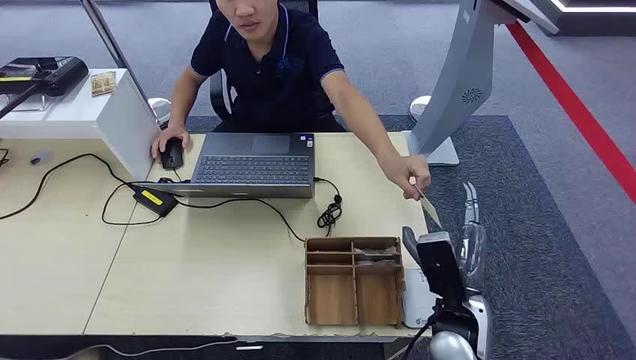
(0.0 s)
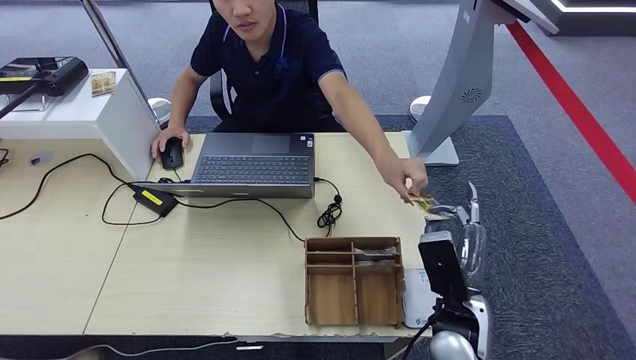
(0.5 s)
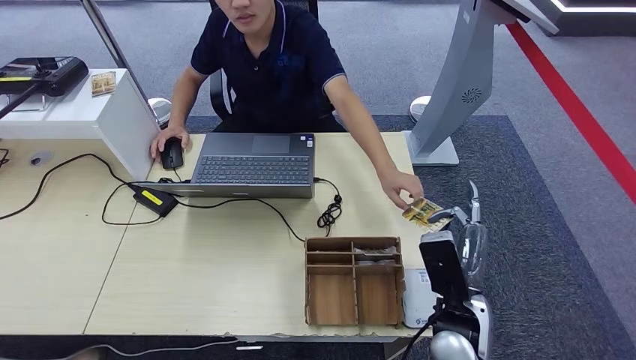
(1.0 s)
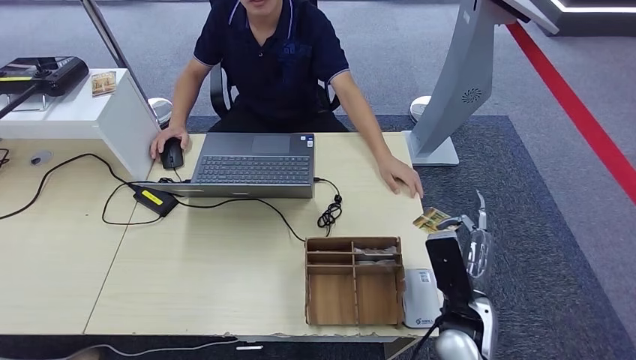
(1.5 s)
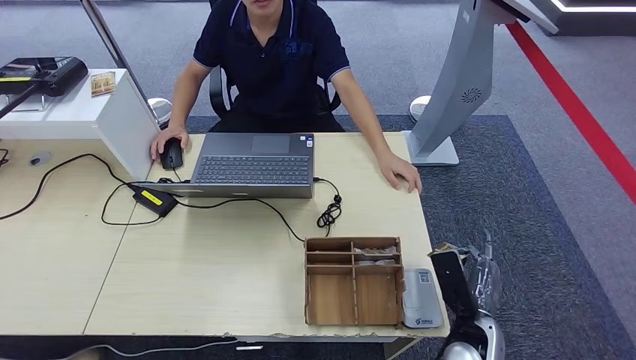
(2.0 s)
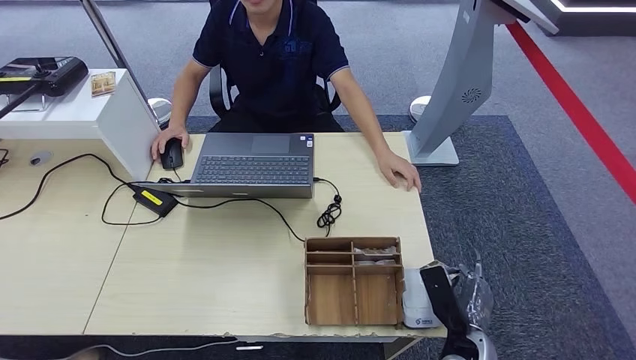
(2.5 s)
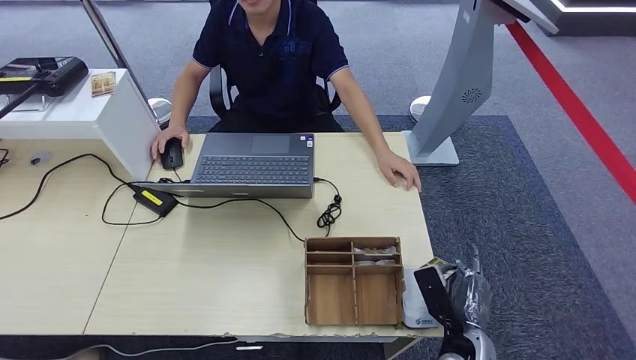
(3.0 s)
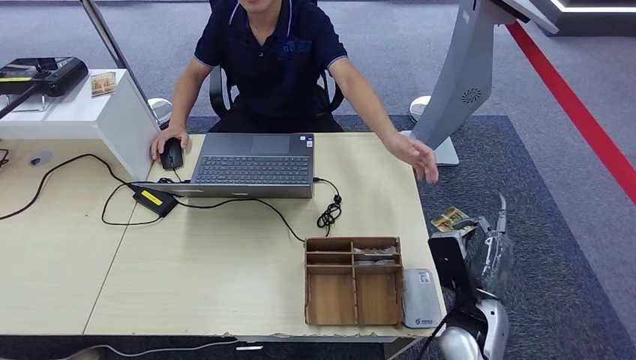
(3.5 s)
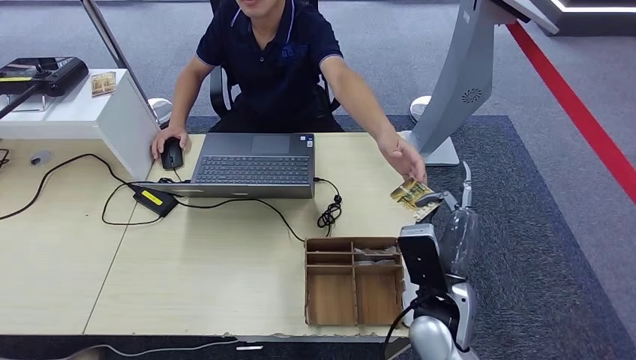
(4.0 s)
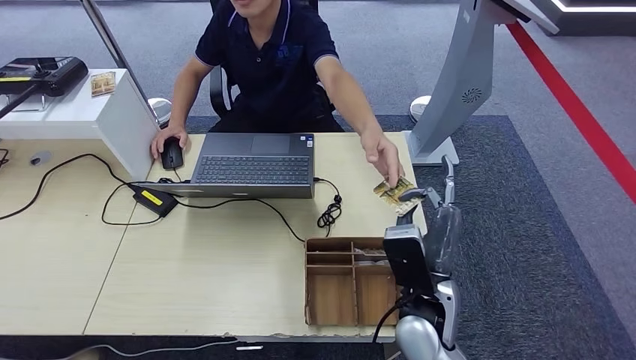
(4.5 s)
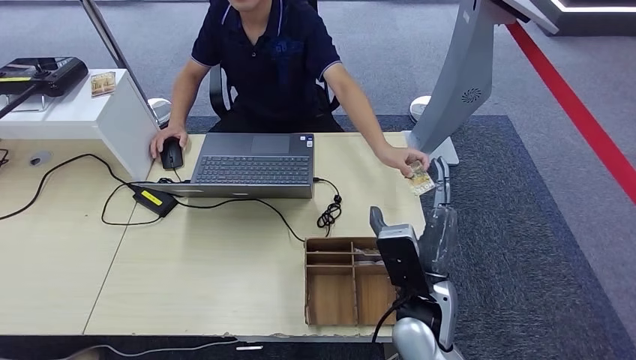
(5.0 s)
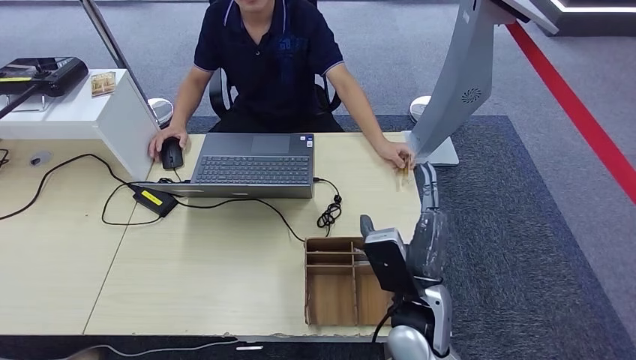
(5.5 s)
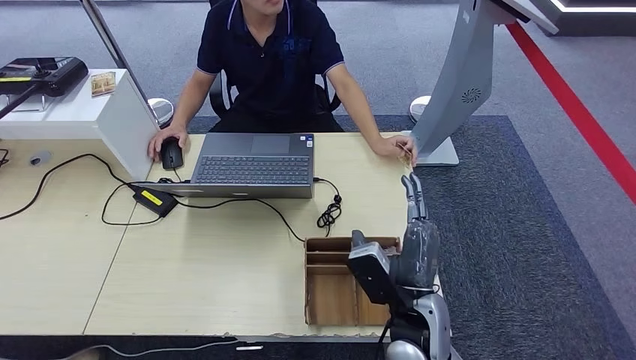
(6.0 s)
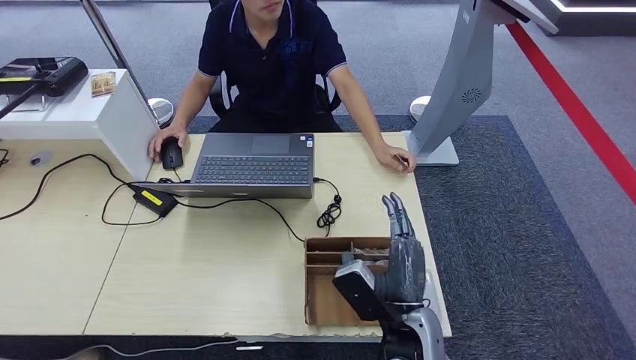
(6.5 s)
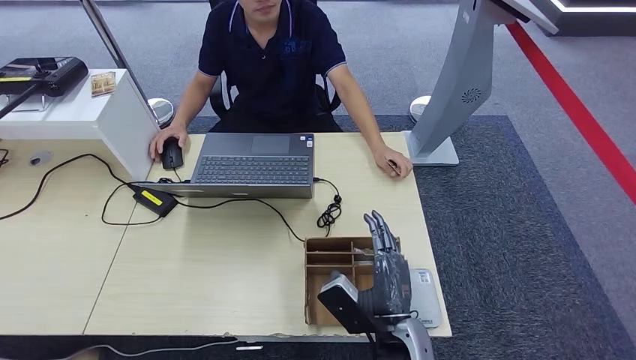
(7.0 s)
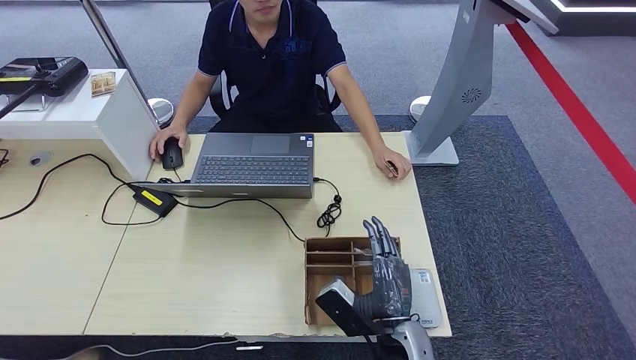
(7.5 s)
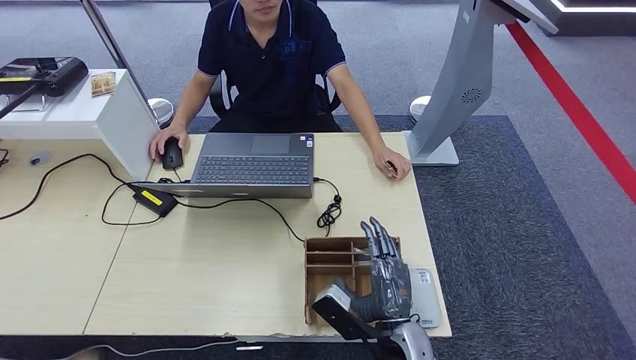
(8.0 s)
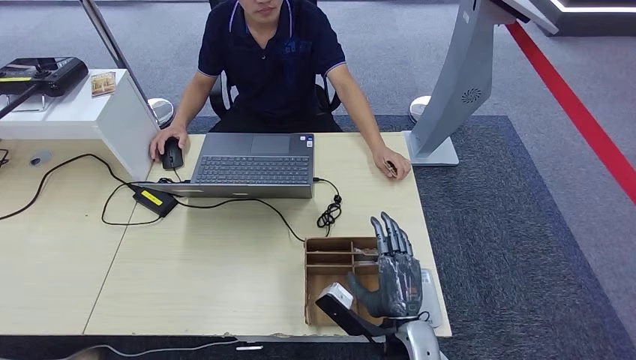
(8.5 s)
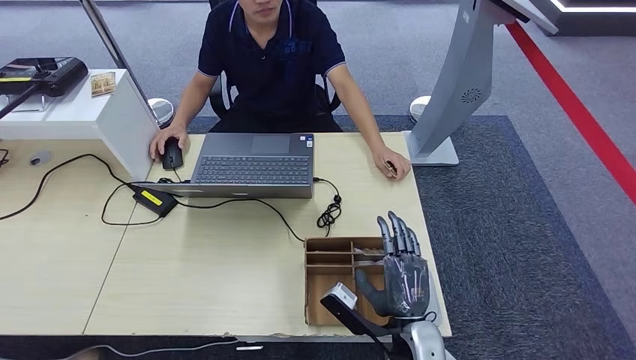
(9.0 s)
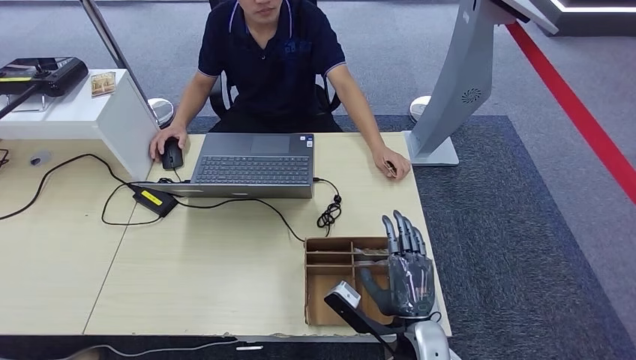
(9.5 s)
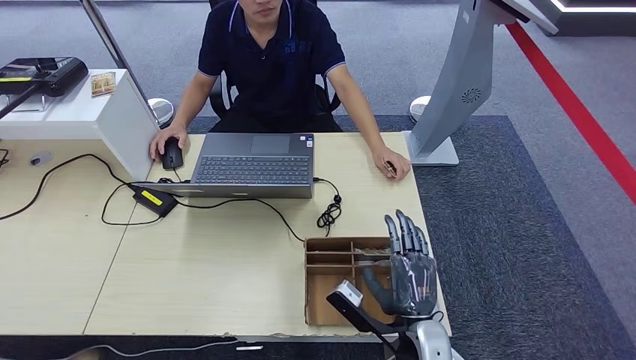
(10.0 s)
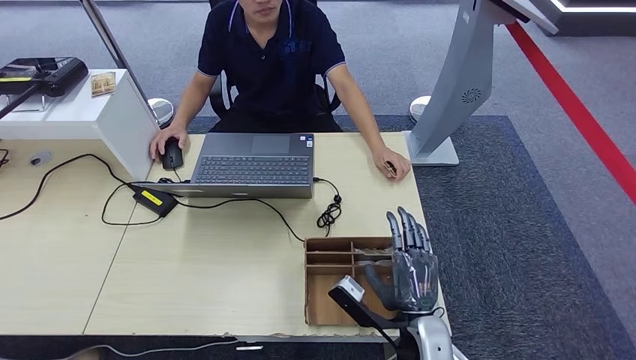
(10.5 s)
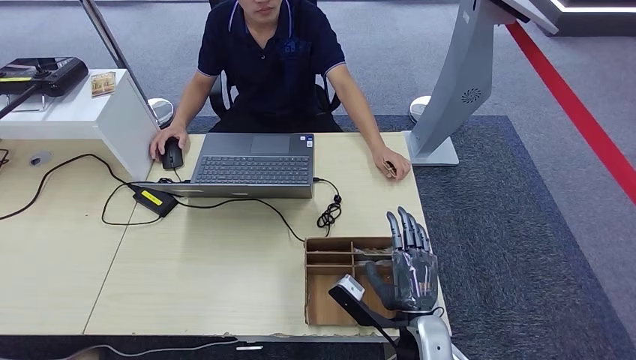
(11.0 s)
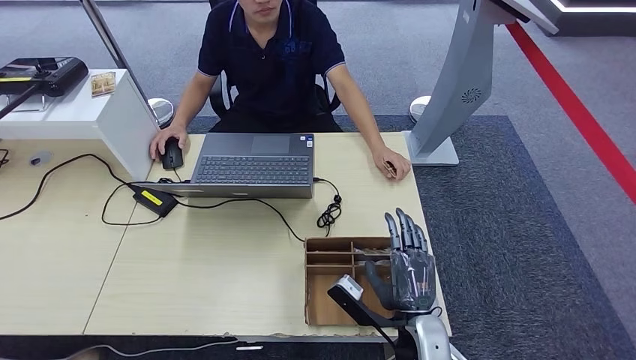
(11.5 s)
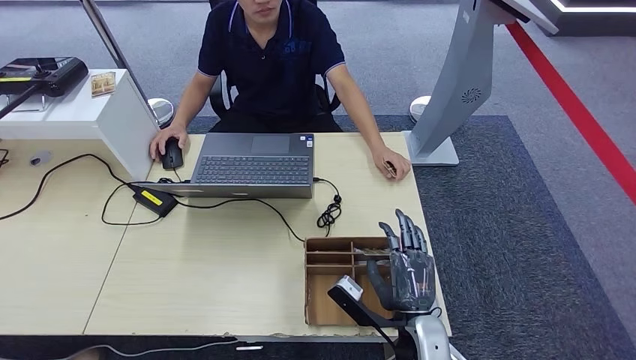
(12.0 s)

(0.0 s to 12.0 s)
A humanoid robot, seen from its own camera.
Step, 0.0 s - 1.0 s: Take the ID card from the person's hand.
Step, 1.5 s - 3.0 s: Place the ID card on the card reader.
Step, 4.0 s - 5.5 s: Hand the ID card to the person.
2.0 s - 4.0 s: The right hand heads upward and to the left, covering approximately 15 cm.
4.0 s - 6.0 s: The hands move only a little.
6.0 s - 8.0 s: The right hand travels downward by approximately 5 cm.
8.0 s - 10.0 s: There are only small adjustments of the hands.
10.0 s - 12.0 s: Both hands stay put.

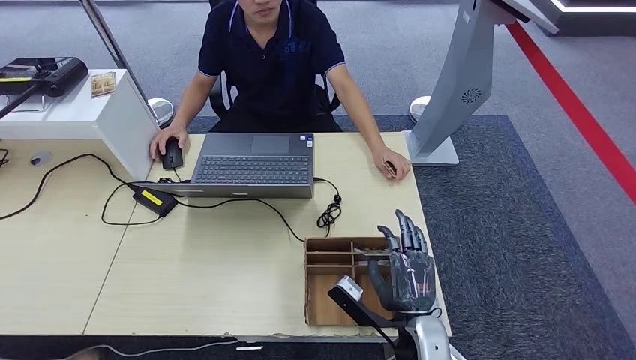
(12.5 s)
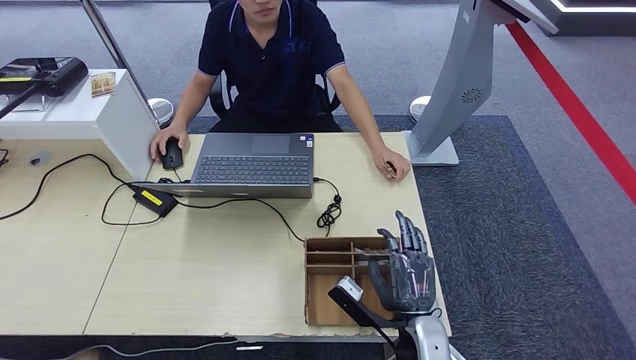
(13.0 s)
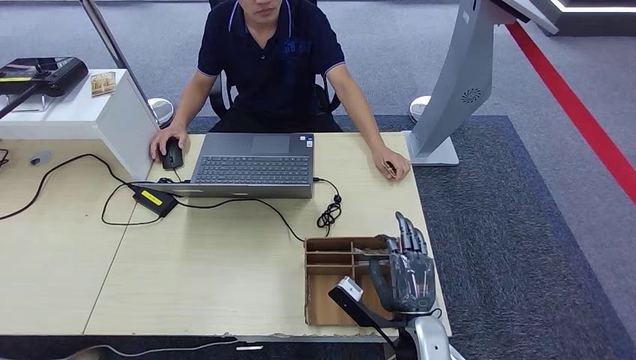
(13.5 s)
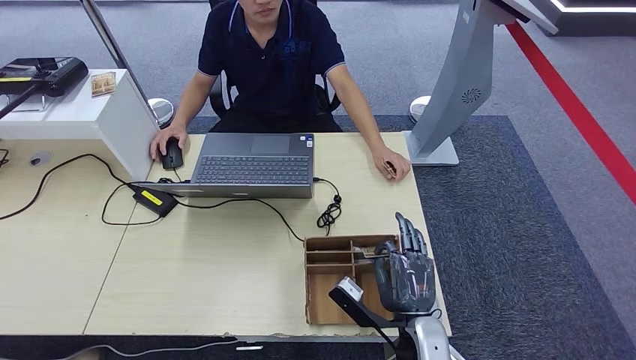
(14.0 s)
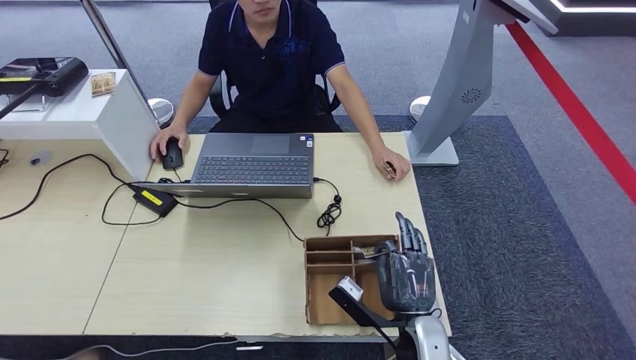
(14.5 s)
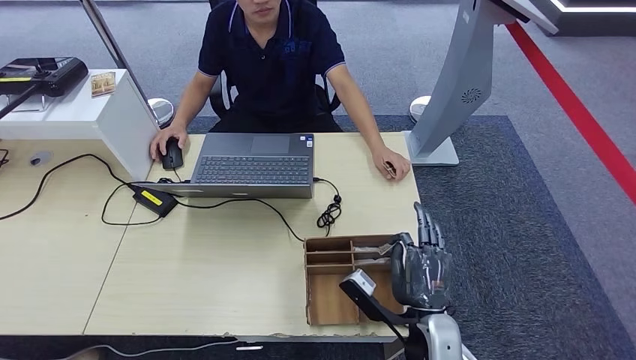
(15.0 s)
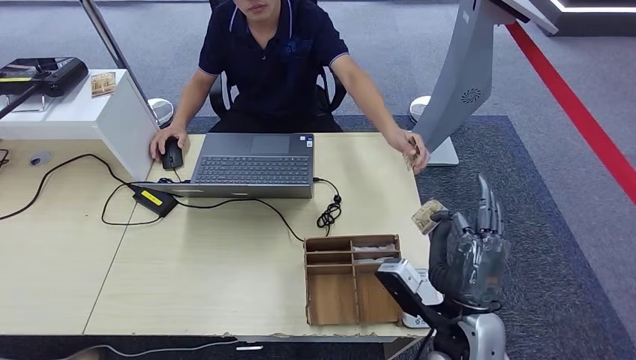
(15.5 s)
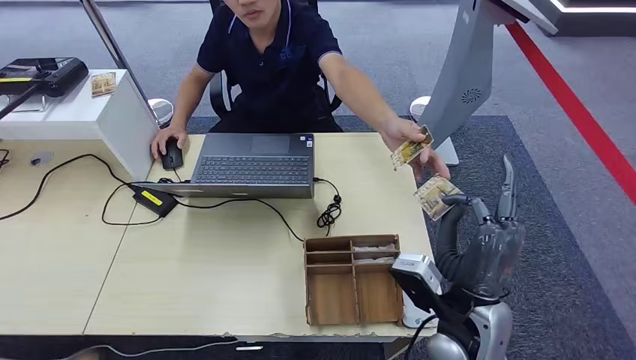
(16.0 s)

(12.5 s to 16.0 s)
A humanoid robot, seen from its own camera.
Step, 15.0 s - 15.5 s: Hand the room key to the person.
12.5 s - 14.5 s: Neither hand changes place.
14.5 s - 16.0 s: The right hand moves upward, some 10 cm.

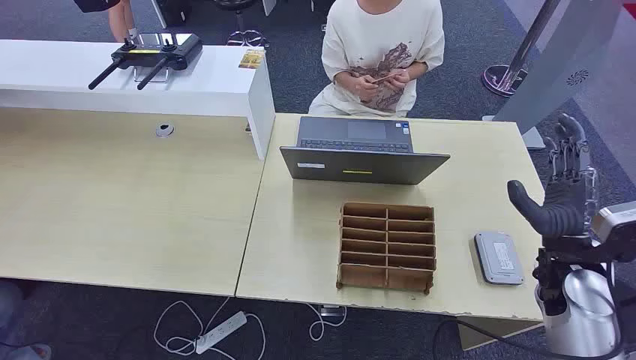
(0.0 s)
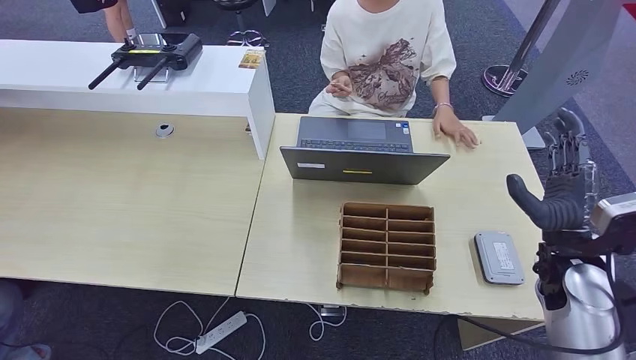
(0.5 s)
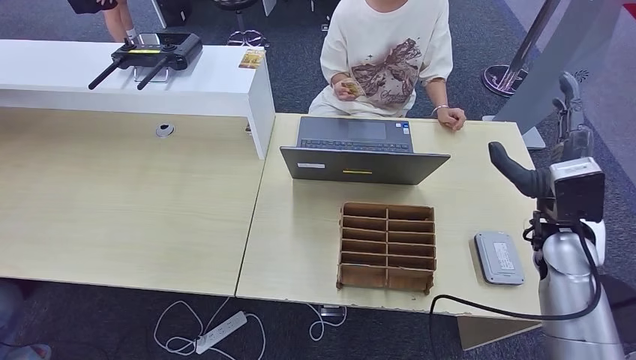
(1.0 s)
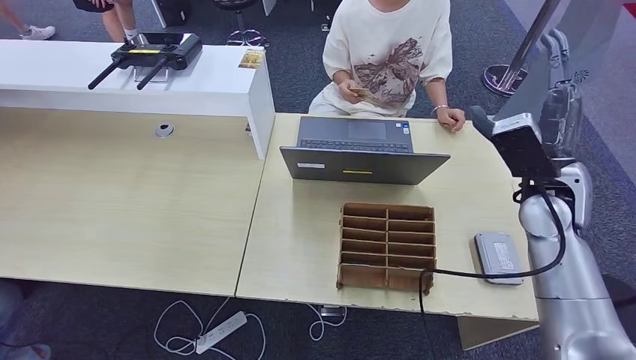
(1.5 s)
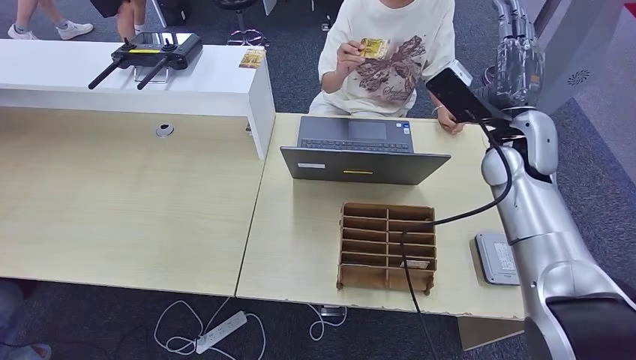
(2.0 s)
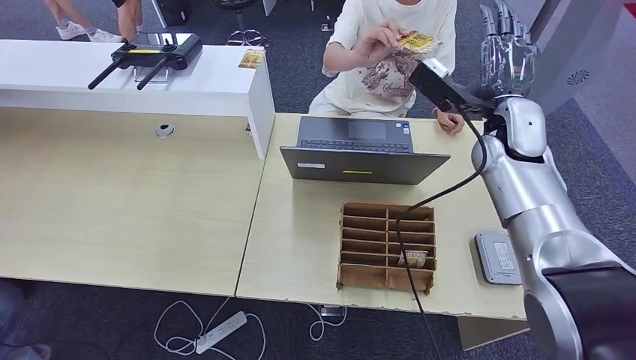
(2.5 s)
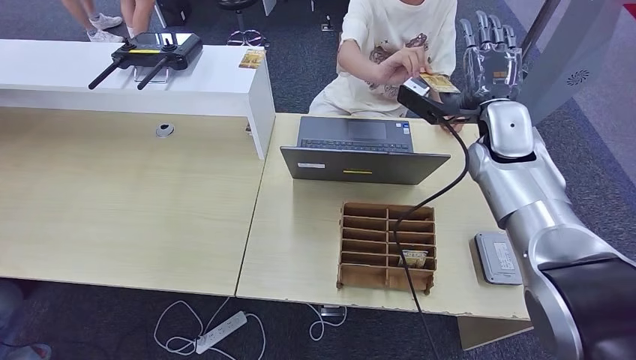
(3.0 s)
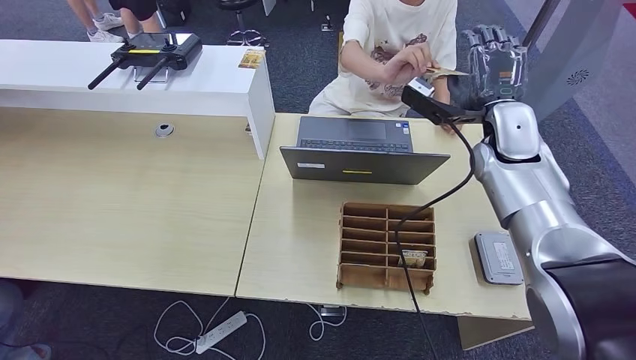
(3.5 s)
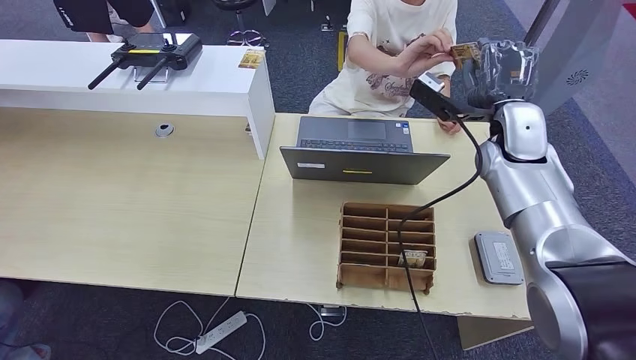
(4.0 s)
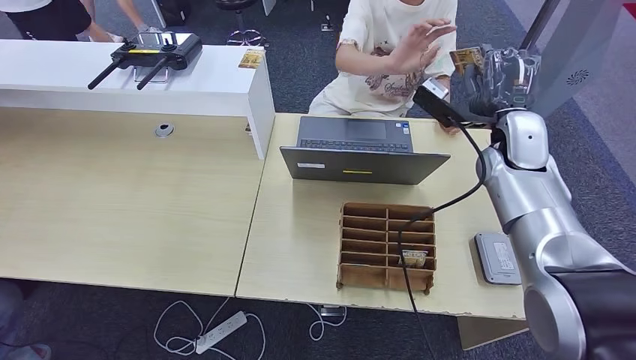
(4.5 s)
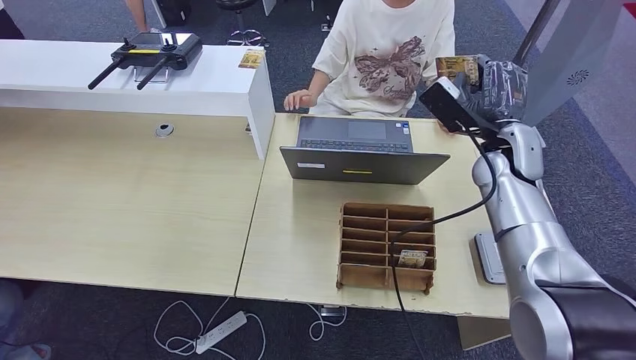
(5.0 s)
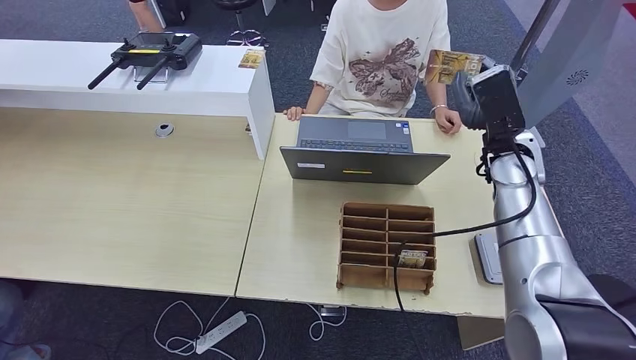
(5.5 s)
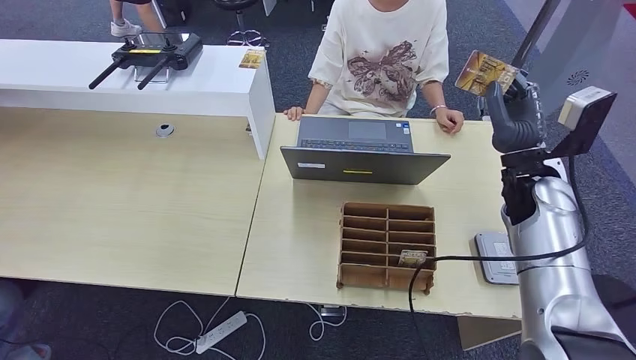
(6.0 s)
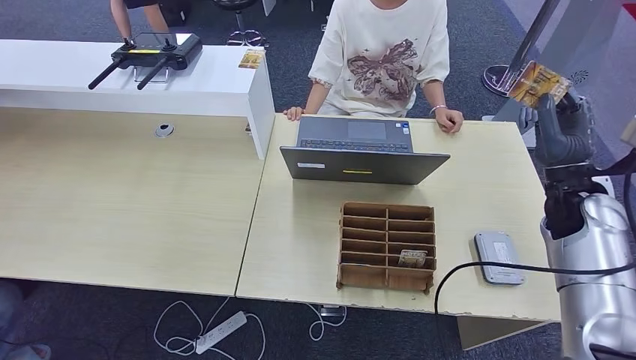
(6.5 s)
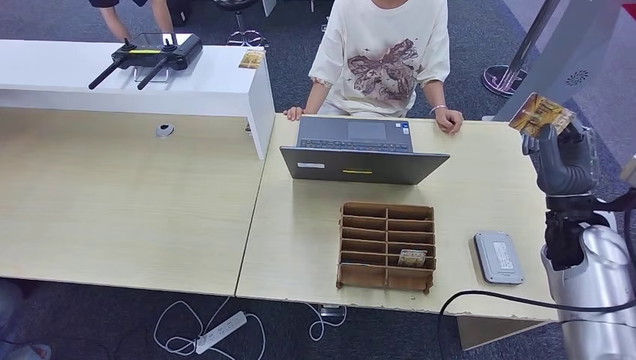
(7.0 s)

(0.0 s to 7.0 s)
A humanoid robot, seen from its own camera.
Step, 0.0 s - 4.5 s: Take the ID card from the person's hand.
5.0 s - 7.0 s: The right hand goes approximately 15 cm to the right, backward and downward.
